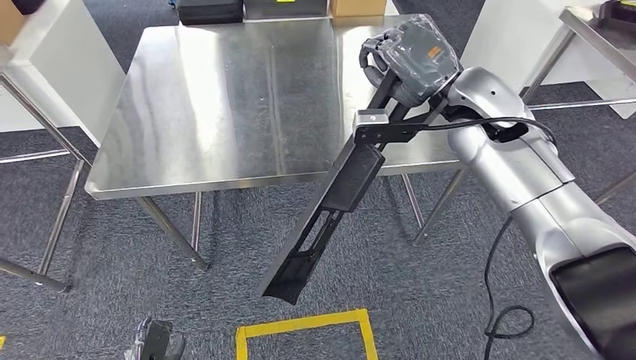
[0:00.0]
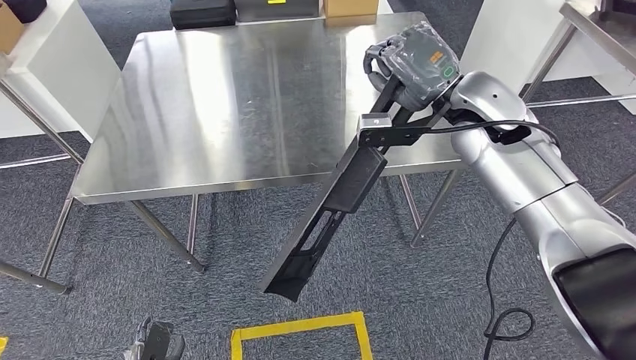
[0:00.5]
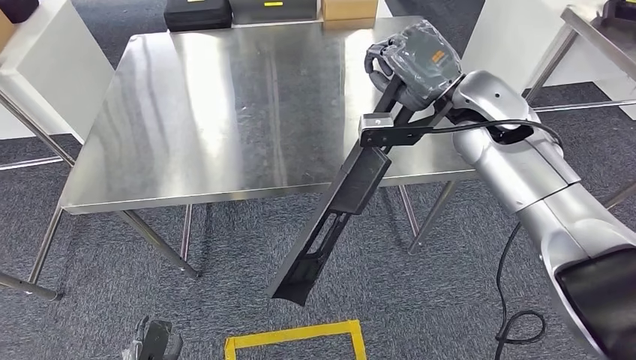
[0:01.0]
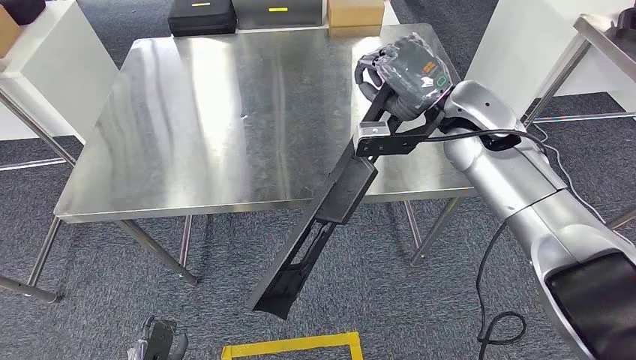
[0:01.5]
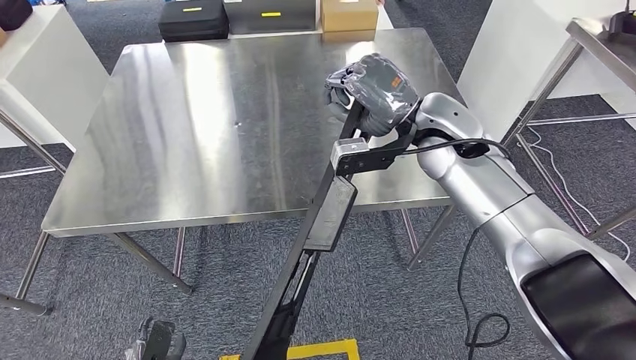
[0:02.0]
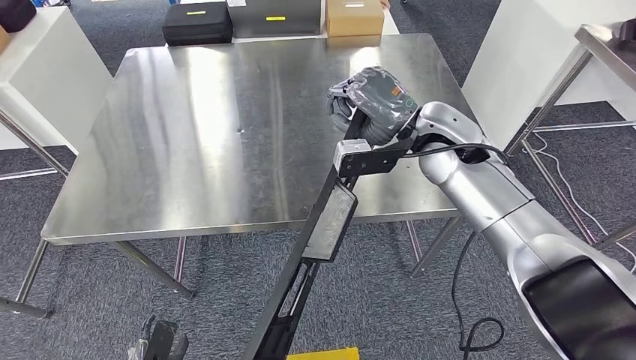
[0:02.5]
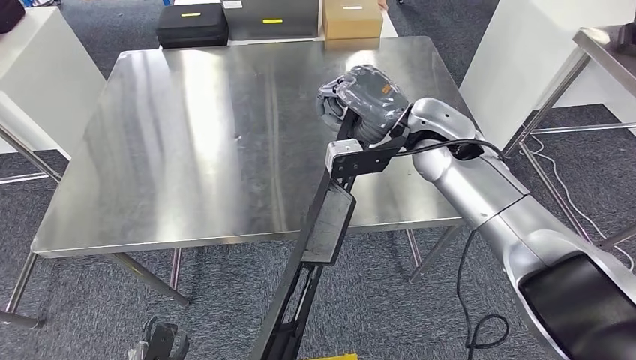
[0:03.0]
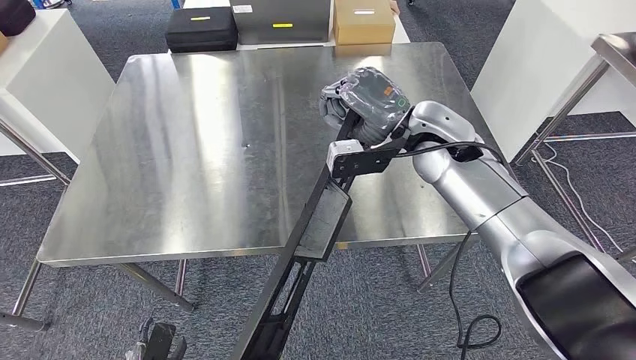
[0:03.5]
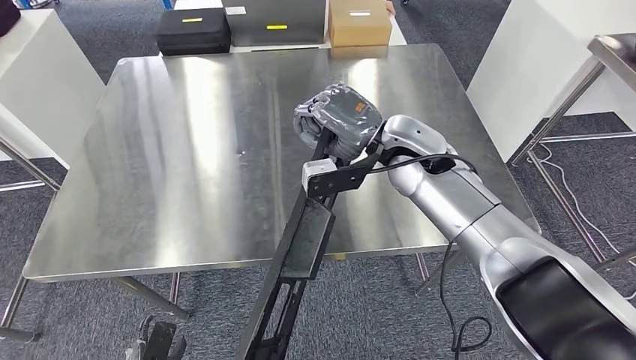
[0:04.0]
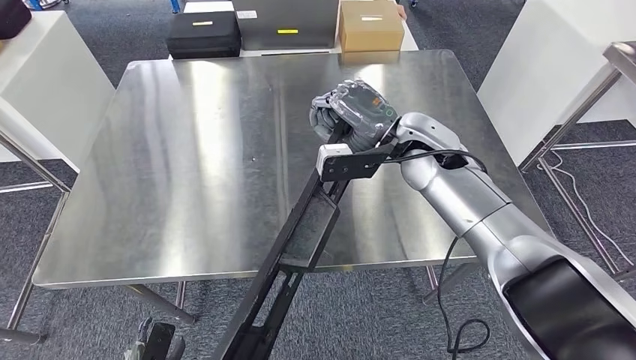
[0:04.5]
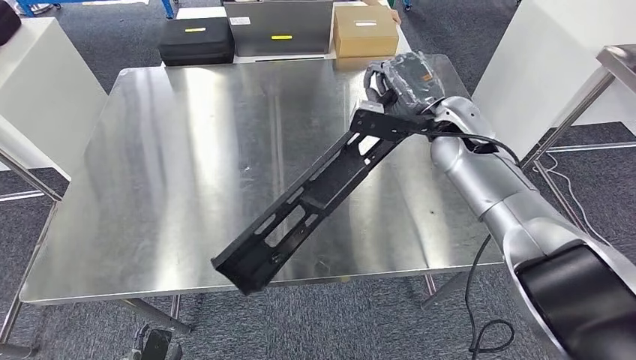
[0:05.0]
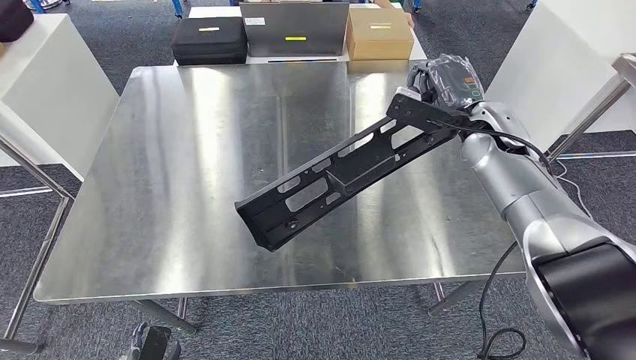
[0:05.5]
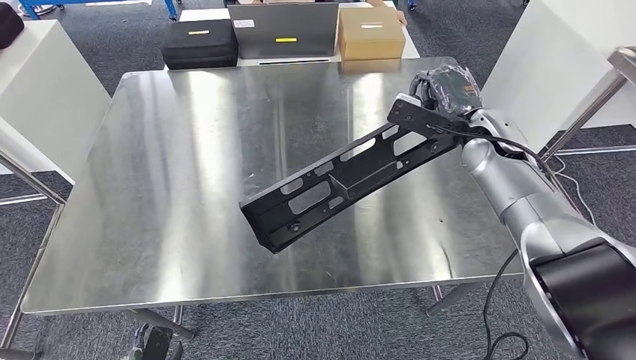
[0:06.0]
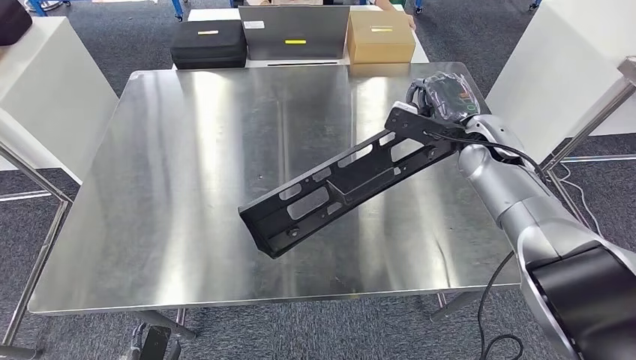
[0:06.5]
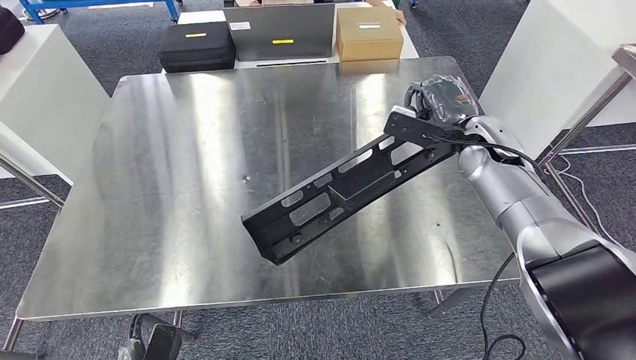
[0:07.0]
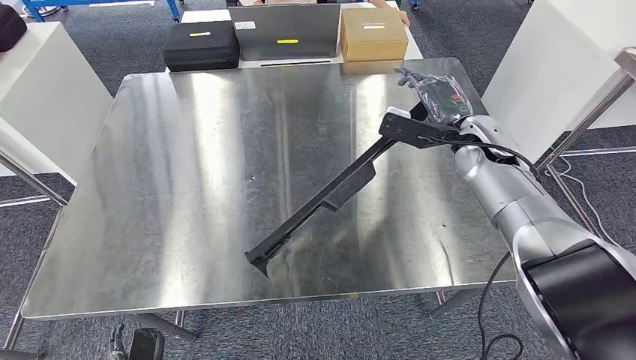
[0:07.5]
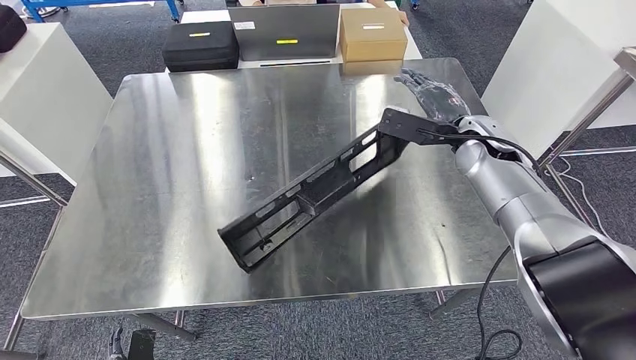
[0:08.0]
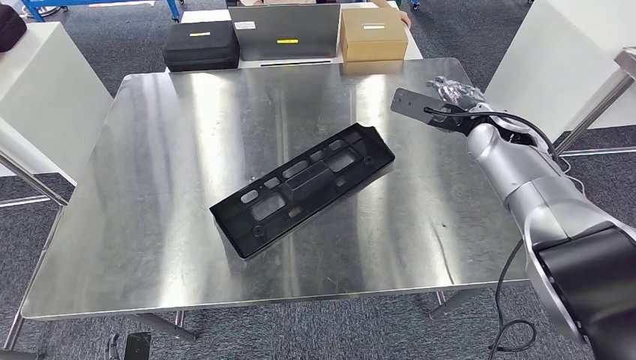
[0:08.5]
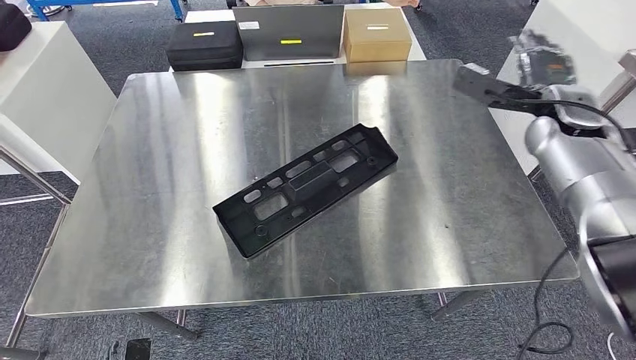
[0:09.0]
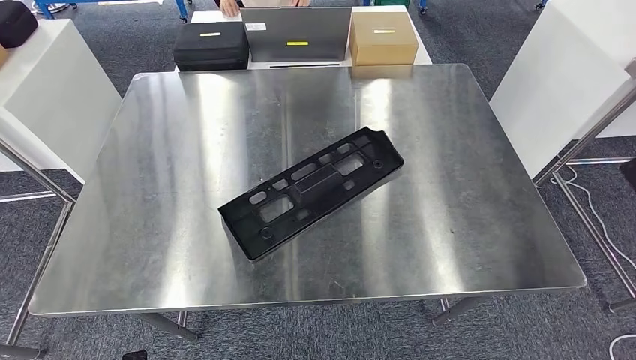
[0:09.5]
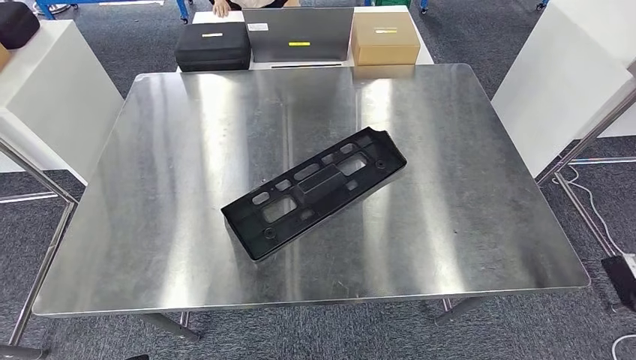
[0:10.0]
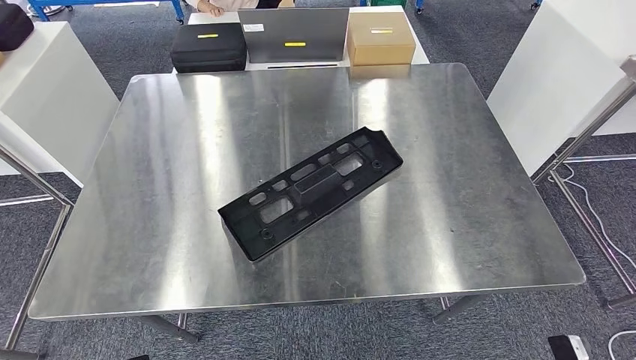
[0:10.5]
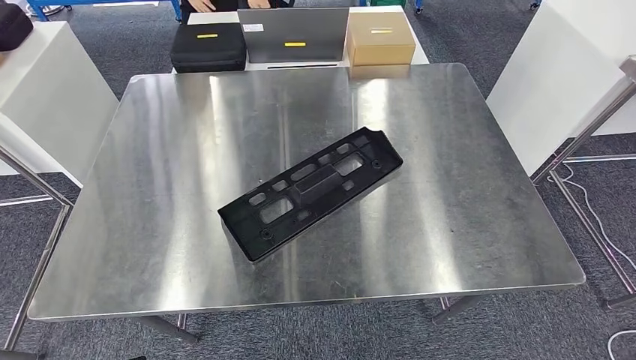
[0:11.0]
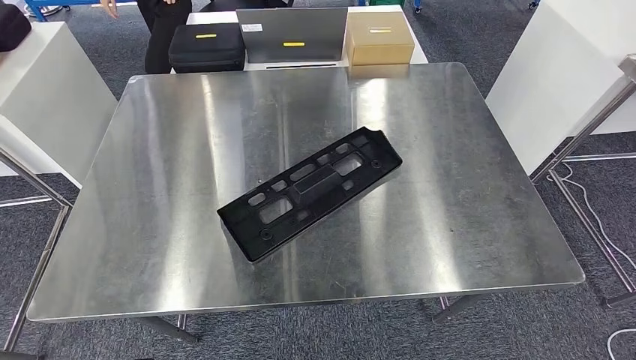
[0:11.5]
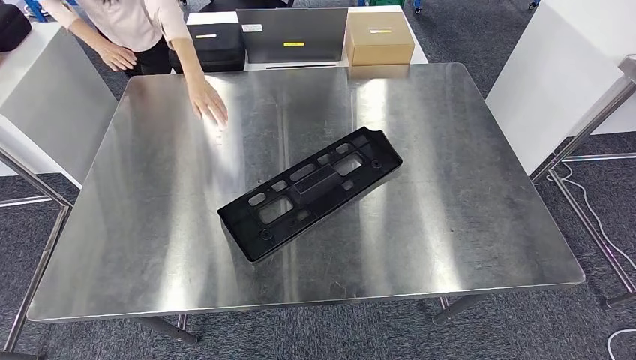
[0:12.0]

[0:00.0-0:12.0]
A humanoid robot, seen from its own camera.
Step, 0:00.0 to 0:09.0: Insert the large material into the corresponding slot on the workbench.
0:06.0 to 0:08.0: The hands make only small movements.

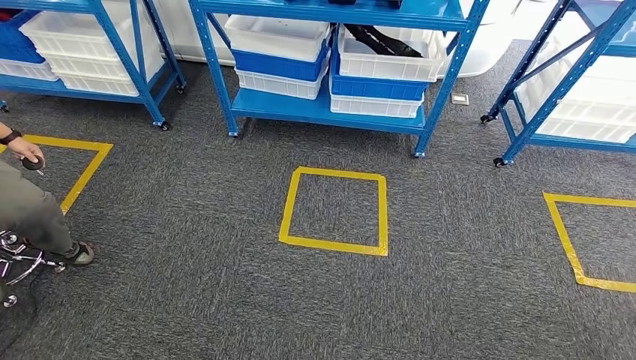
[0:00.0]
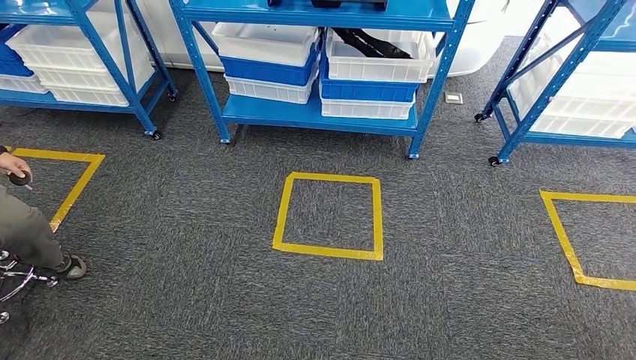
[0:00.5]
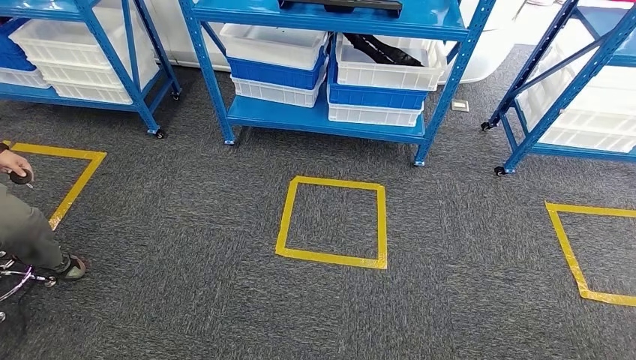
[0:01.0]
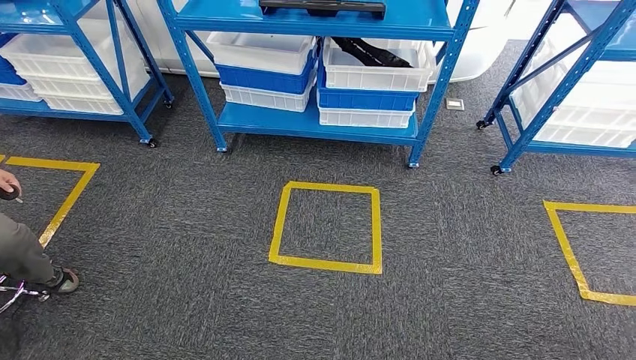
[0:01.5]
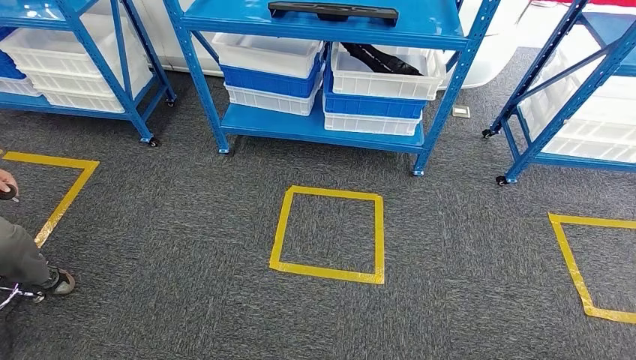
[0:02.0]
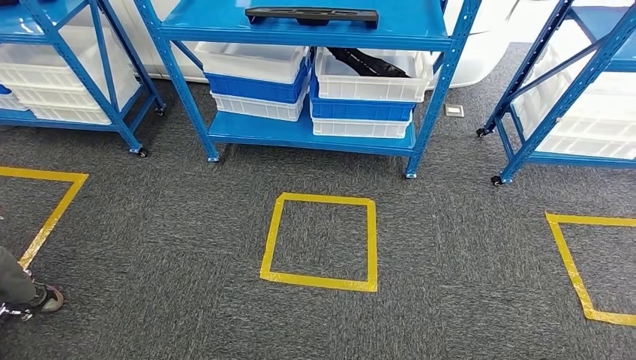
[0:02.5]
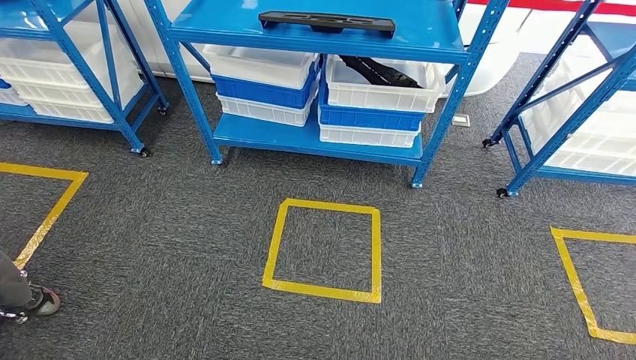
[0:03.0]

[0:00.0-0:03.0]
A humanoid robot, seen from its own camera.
Step, 0:00.0 to 0:03.0: Return to the initial position at the shelf.

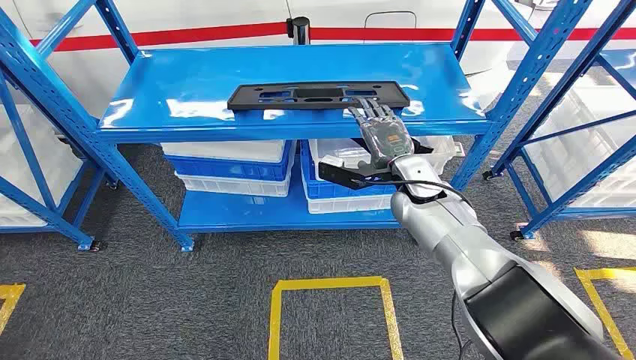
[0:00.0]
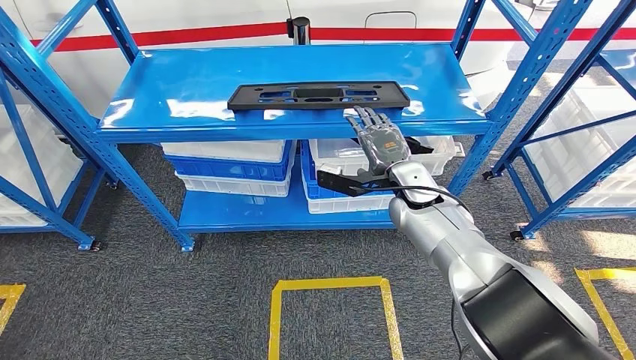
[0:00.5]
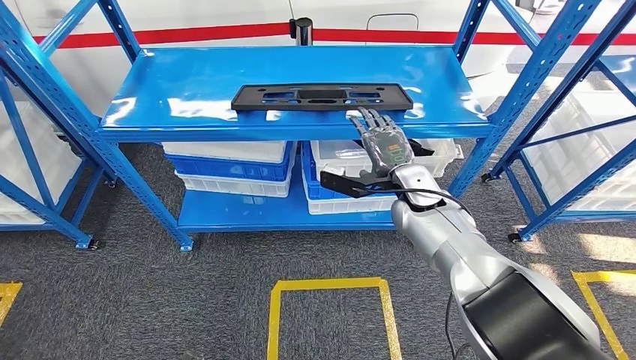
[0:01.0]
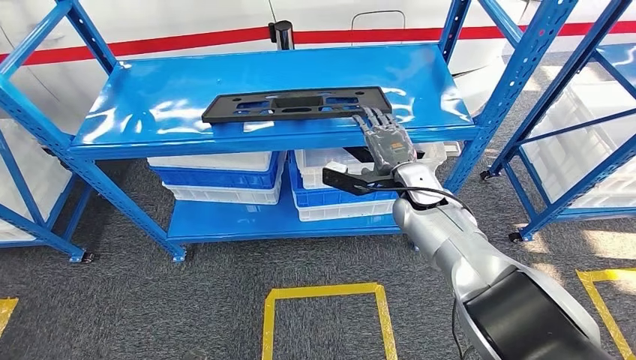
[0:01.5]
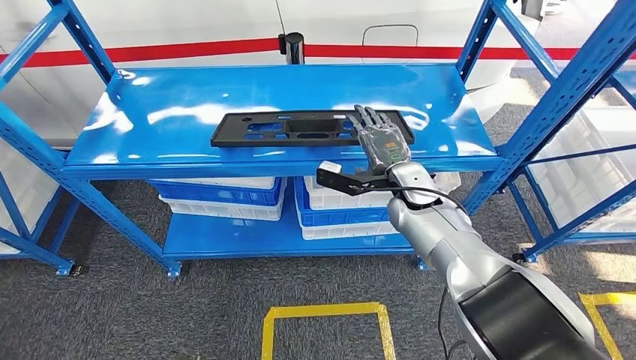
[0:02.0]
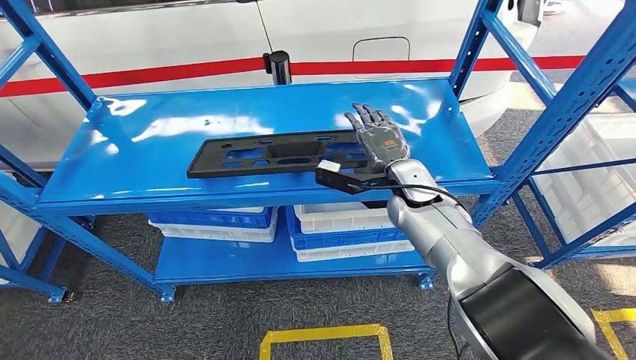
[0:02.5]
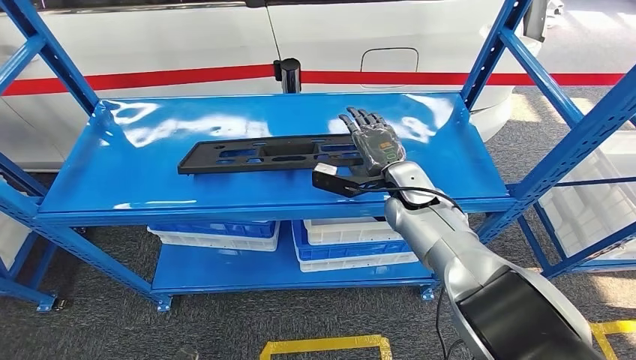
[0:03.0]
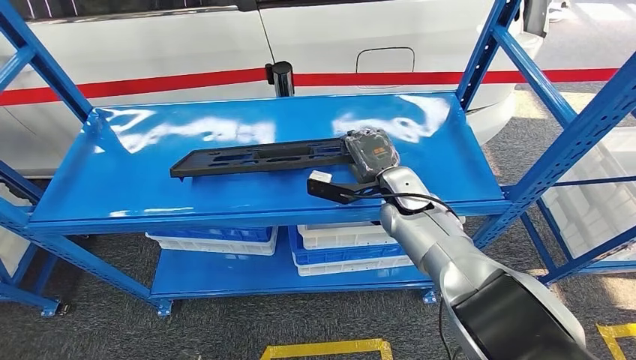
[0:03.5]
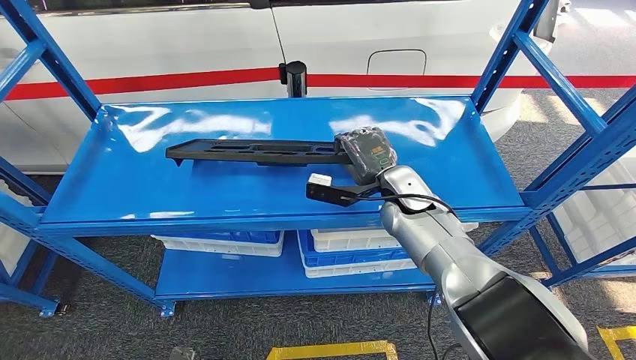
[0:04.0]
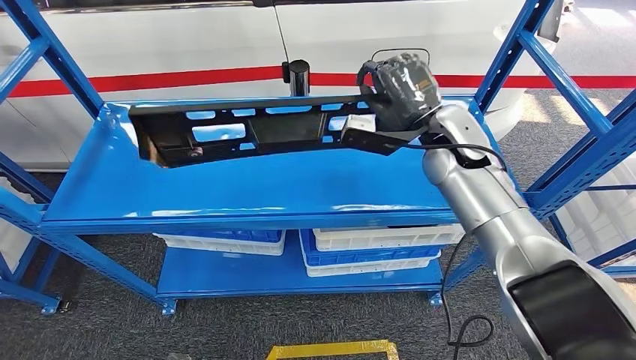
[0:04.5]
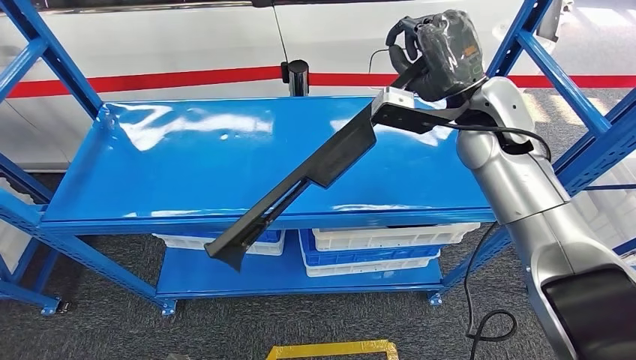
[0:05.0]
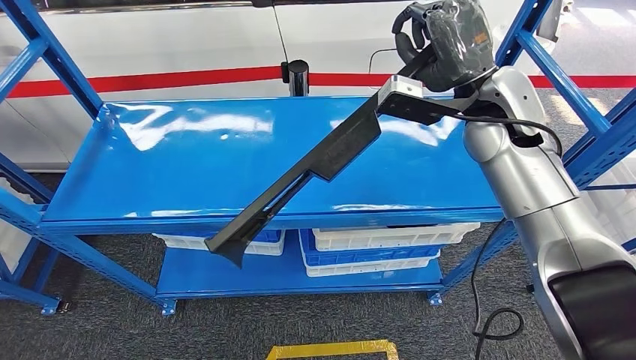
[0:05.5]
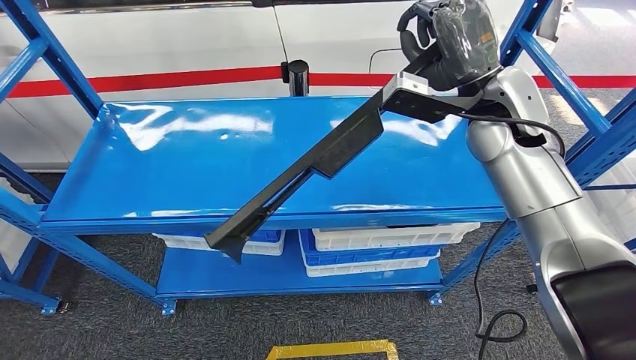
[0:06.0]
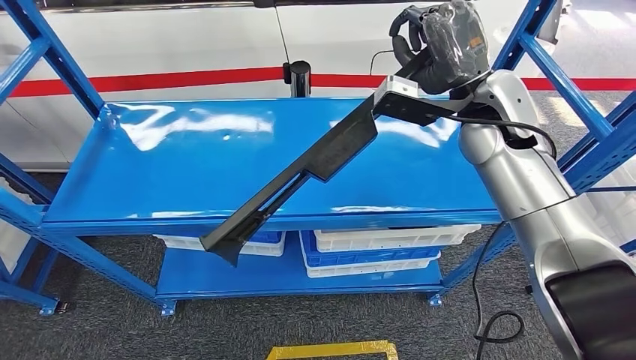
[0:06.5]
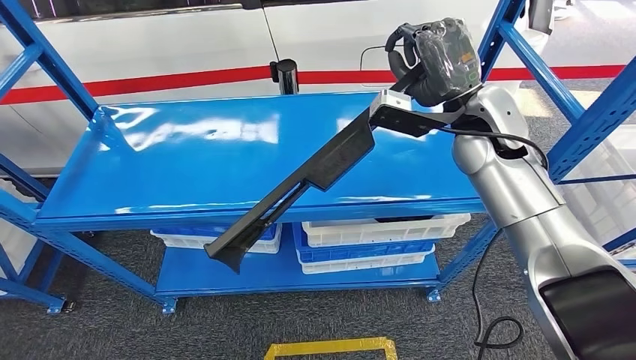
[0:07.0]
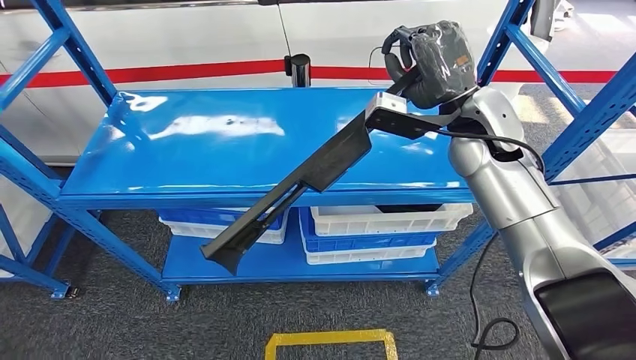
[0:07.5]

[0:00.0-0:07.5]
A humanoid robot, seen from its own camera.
Step, 0:00.0 to 0:06.0: Pick up the large material from the shelf.
